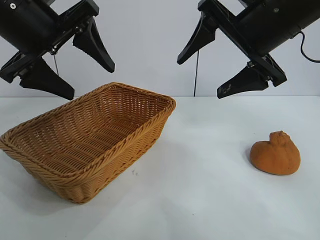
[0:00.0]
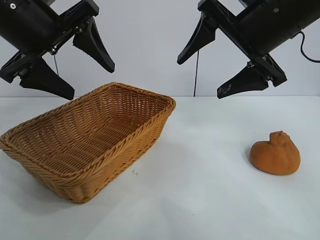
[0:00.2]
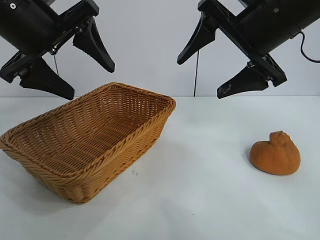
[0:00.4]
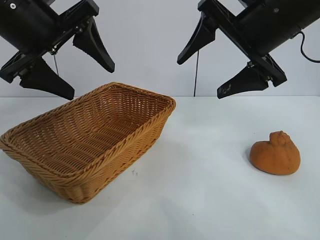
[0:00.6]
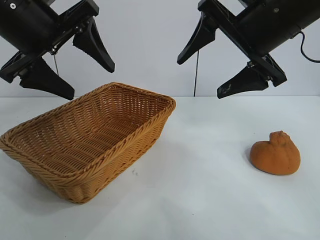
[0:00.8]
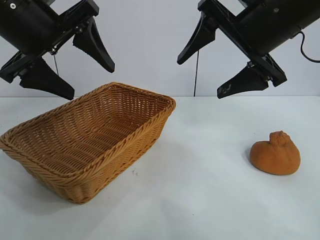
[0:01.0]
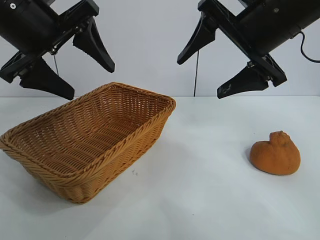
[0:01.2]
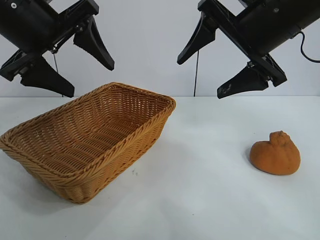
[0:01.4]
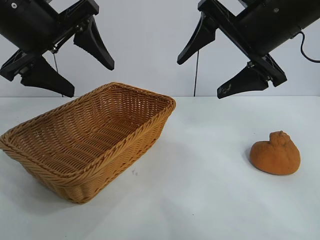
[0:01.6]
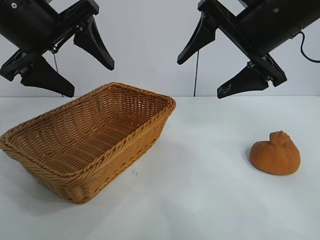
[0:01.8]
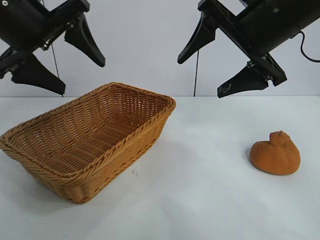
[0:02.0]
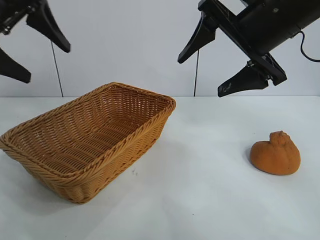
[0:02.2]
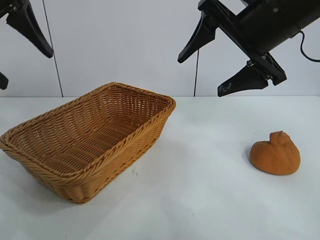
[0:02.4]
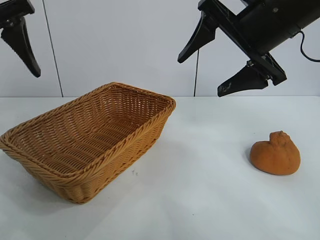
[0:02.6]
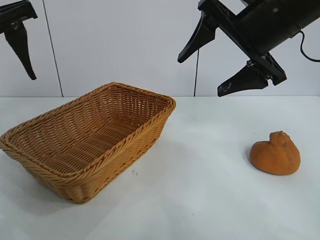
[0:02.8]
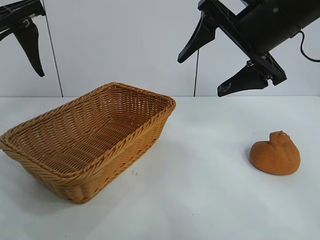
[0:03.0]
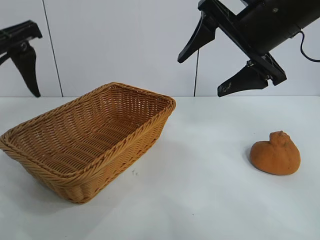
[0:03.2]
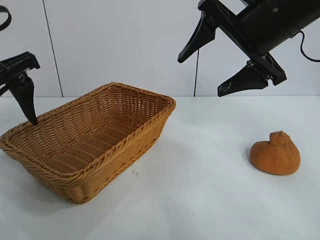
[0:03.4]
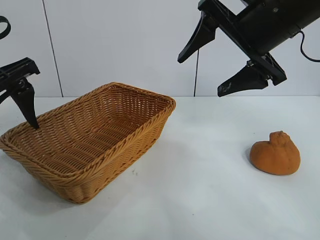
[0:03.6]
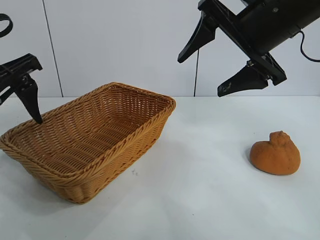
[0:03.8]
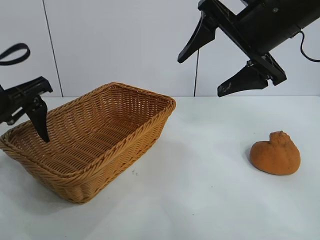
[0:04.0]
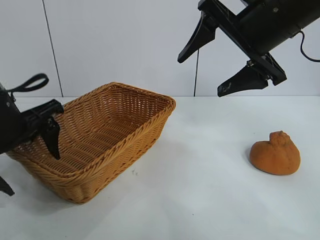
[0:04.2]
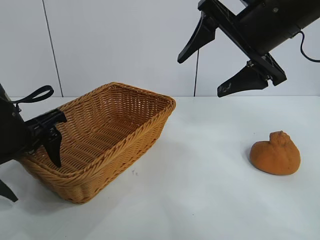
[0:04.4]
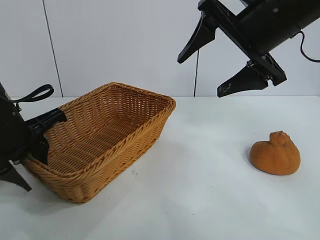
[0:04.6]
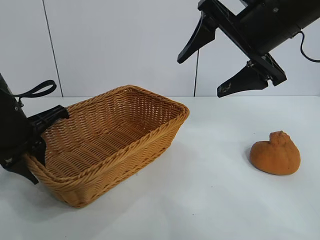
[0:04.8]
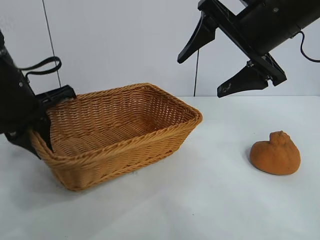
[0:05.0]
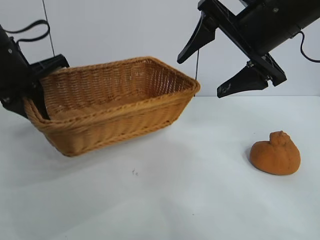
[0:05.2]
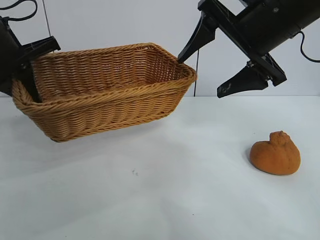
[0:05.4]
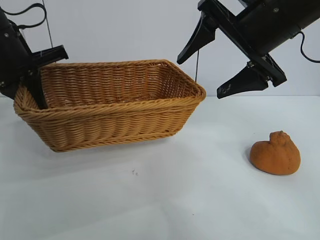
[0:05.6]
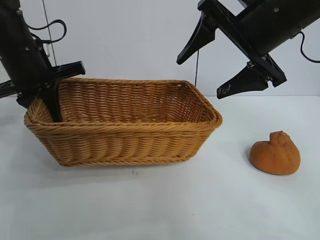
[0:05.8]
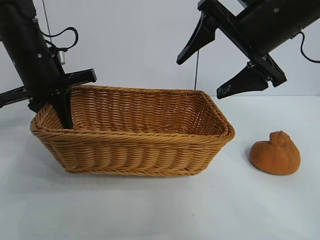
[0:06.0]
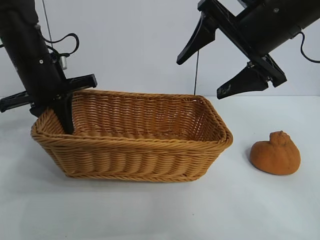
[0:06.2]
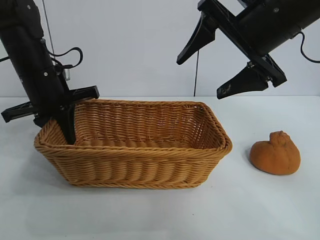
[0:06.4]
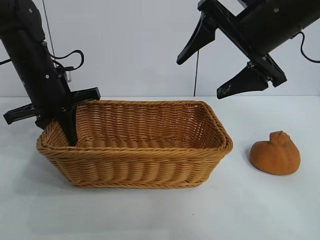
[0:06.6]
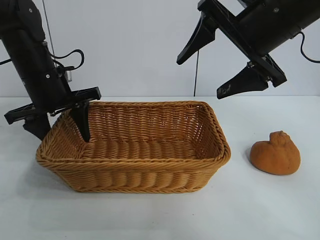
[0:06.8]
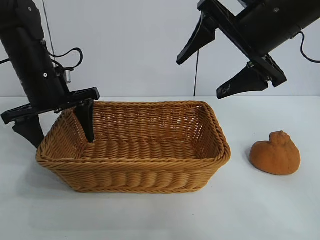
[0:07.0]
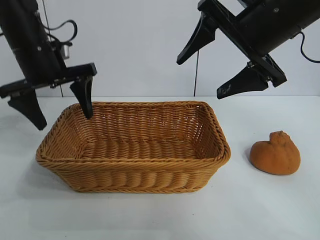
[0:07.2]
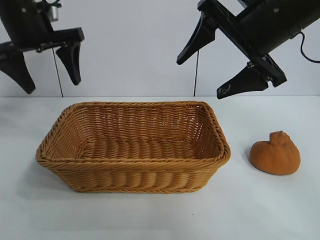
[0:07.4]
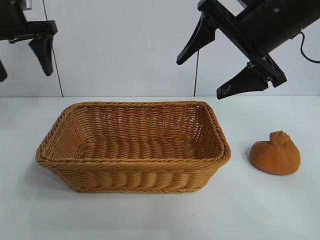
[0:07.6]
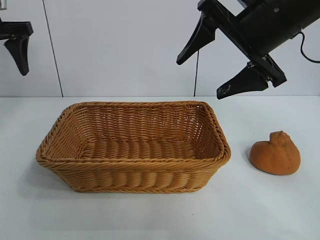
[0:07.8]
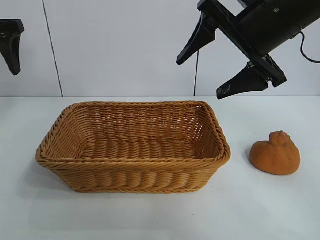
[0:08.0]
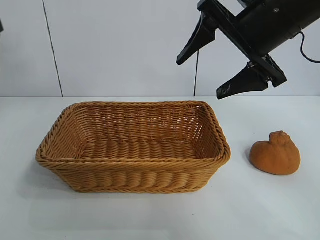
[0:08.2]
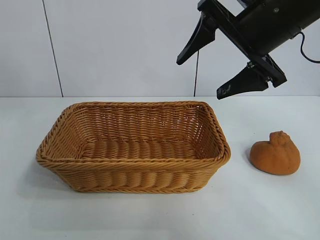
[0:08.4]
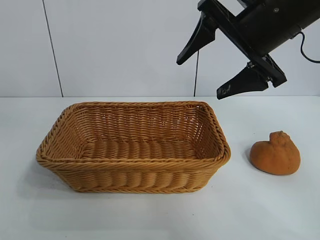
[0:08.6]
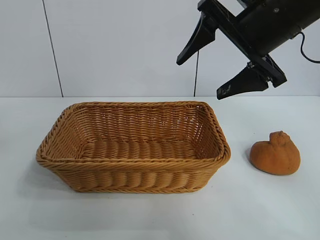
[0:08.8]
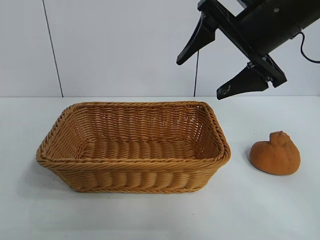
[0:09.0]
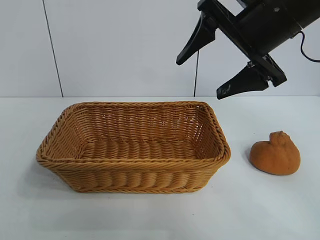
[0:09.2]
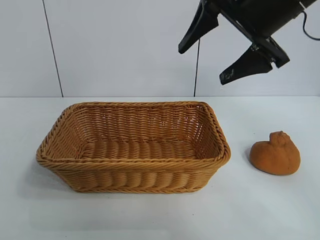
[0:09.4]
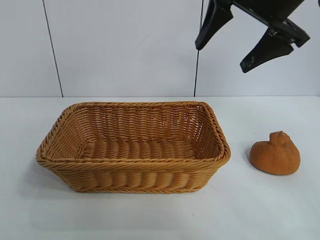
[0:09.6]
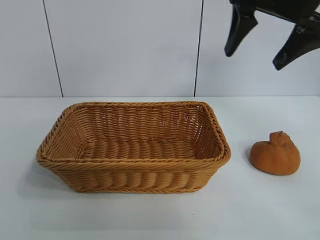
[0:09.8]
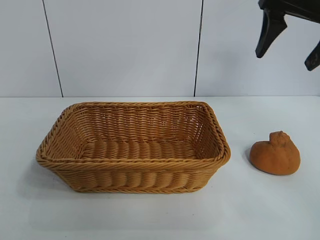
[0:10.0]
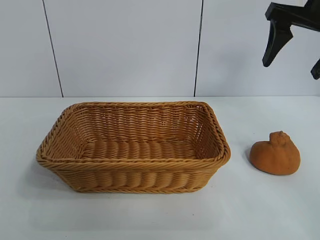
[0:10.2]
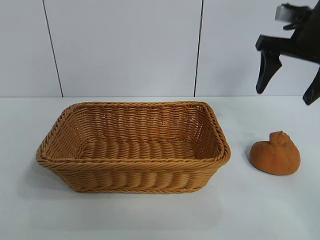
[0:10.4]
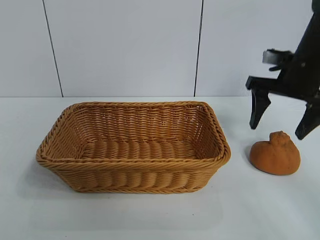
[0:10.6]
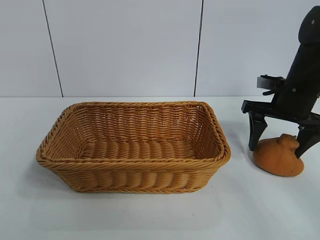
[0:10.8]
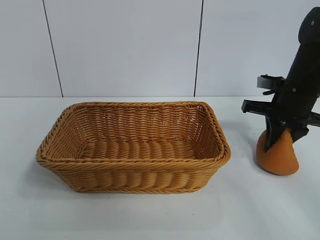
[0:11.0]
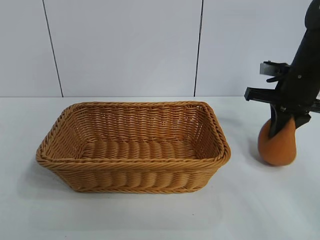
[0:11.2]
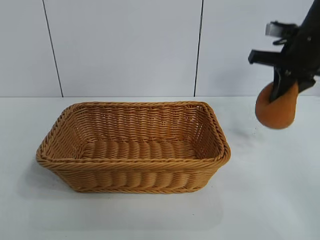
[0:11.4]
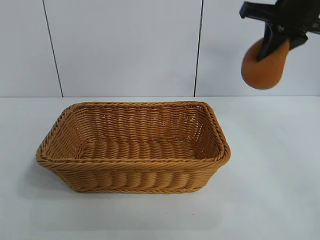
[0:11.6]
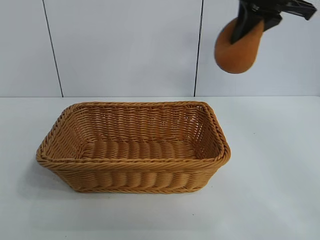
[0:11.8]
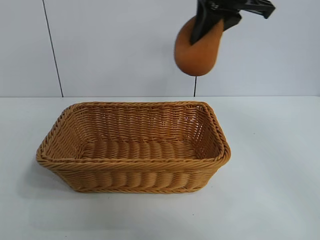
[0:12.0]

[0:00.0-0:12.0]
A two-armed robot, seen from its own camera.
Task of the whole recording: pick up the orange and put it into the basket.
Step, 0:01.4 to 0:04.6: Grasp the basket with left gripper.
Step, 0:04.8 to 0:06.8: Place the basket in the center of view with left gripper.
Step, 0:07.0 to 0:10.8: Grasp the orange with right gripper.

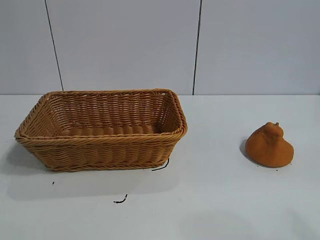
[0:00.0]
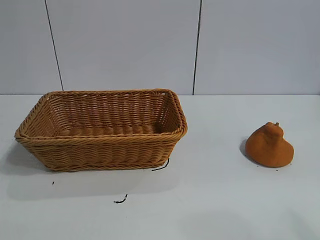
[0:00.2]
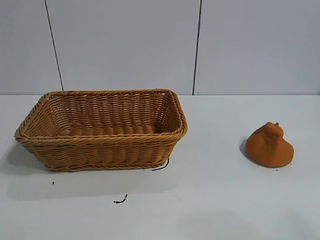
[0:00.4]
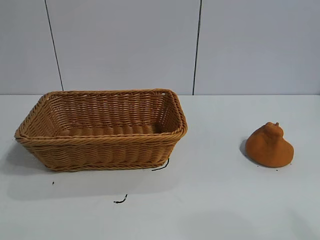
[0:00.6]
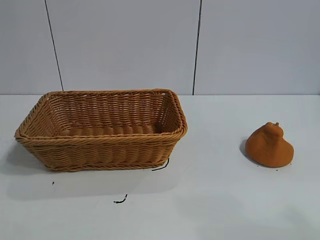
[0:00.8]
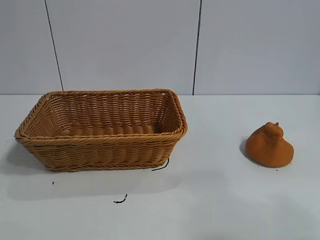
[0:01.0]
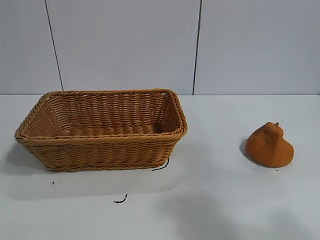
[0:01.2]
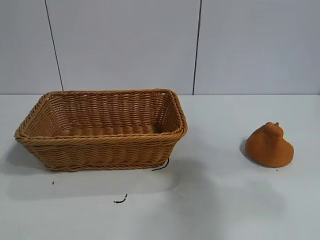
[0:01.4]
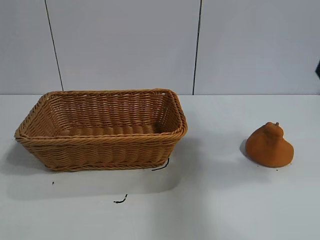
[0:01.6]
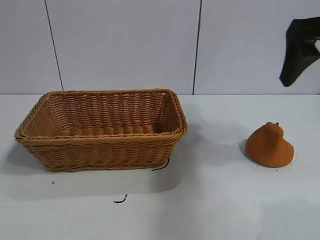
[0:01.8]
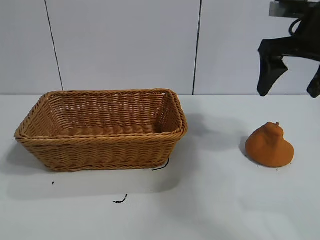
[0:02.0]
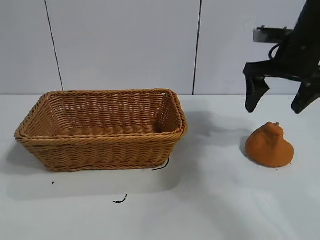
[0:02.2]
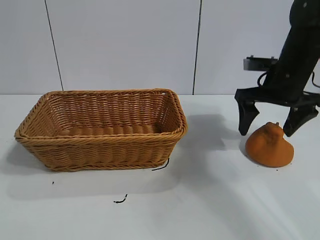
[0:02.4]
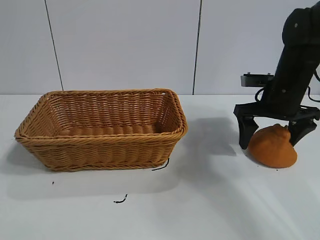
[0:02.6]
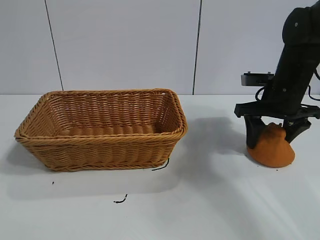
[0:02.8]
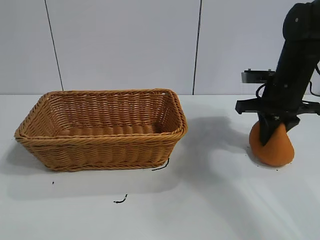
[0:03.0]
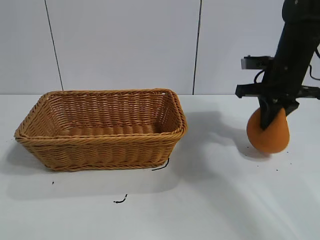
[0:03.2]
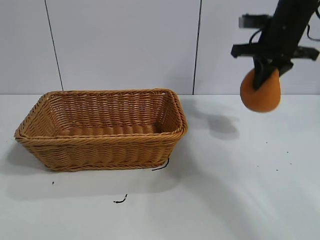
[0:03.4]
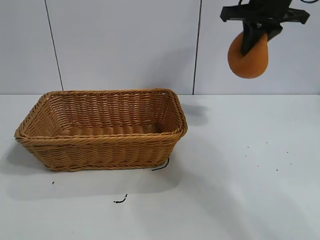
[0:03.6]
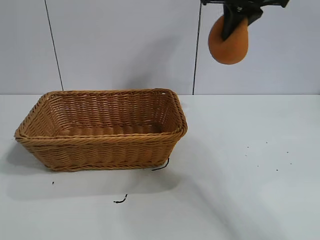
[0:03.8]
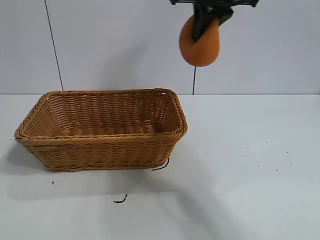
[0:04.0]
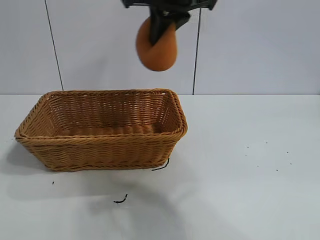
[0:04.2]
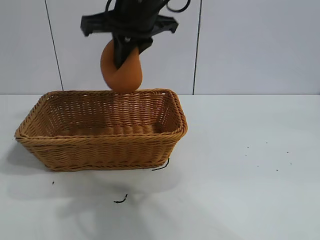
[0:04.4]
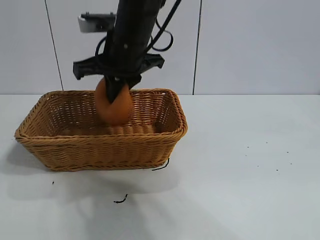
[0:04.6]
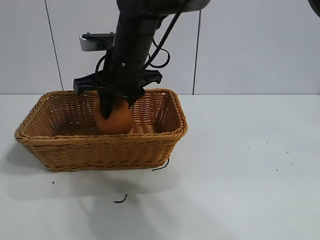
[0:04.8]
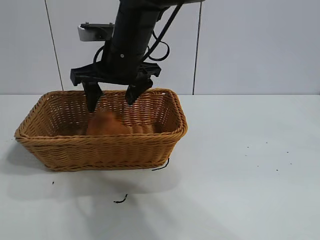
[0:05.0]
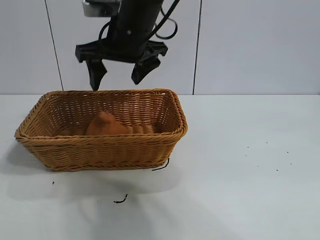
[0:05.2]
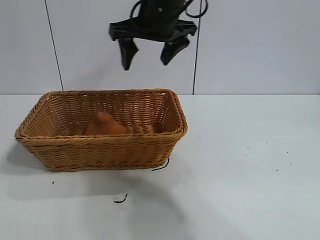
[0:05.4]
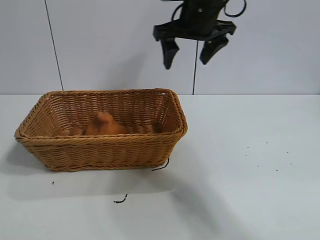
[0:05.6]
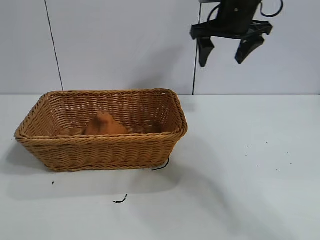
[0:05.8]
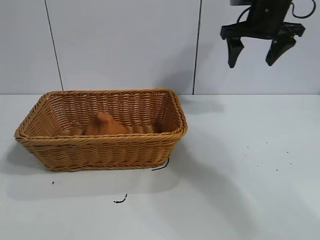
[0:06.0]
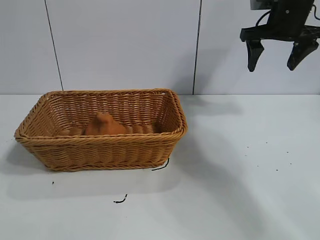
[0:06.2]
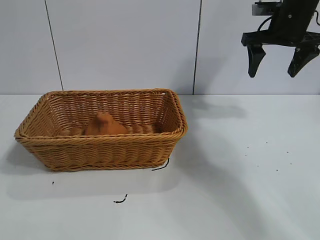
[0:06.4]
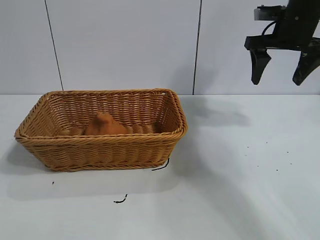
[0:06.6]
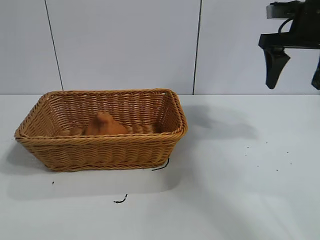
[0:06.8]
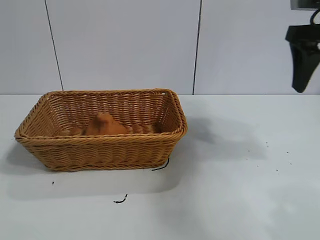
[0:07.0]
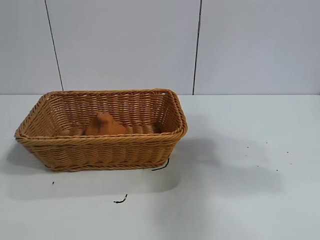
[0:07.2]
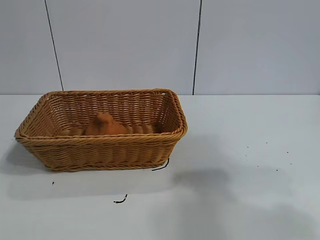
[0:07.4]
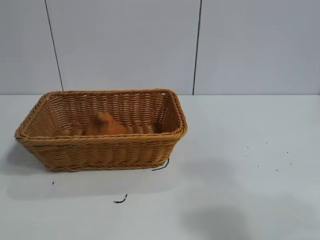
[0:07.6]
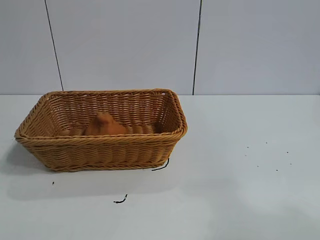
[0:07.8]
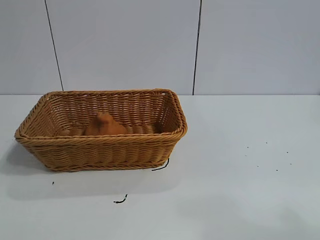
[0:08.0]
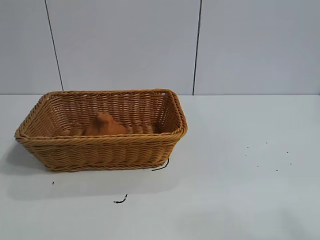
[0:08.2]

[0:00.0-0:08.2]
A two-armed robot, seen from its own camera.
Task of the whole recording: pick up the orange and put it into the basket.
Step, 0:00.8 to 0:03.0: Grasp the orange with right gripper.
Step, 0:03.2 to 0:04.8: Place the orange in the basket with right gripper.
